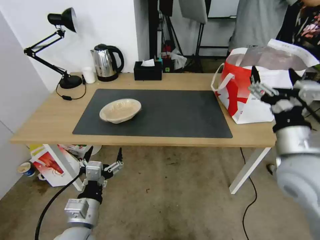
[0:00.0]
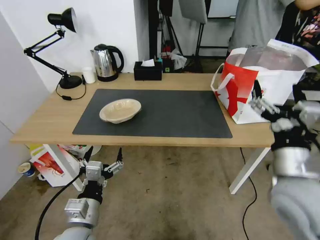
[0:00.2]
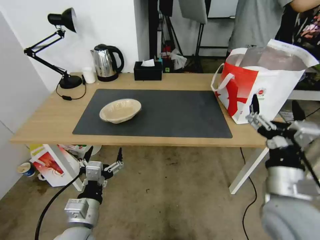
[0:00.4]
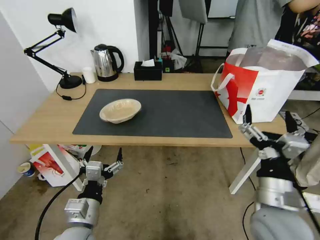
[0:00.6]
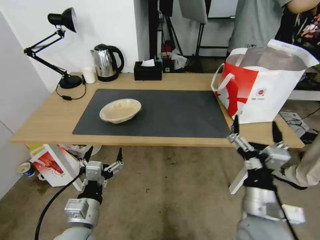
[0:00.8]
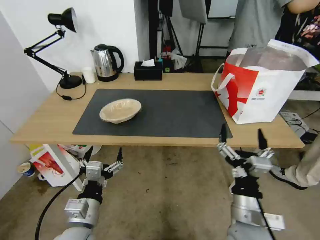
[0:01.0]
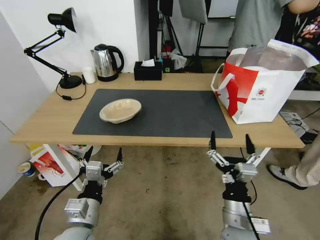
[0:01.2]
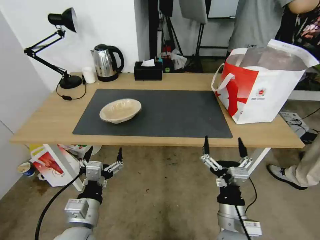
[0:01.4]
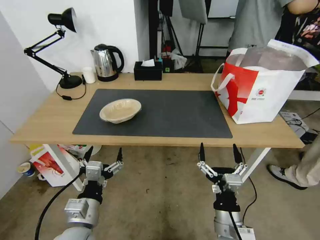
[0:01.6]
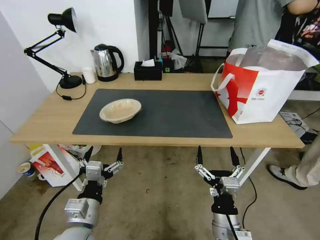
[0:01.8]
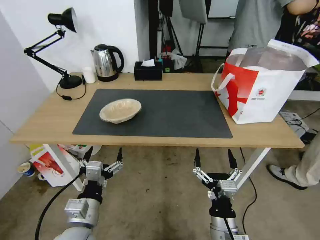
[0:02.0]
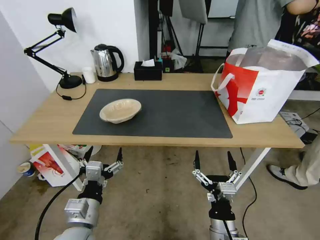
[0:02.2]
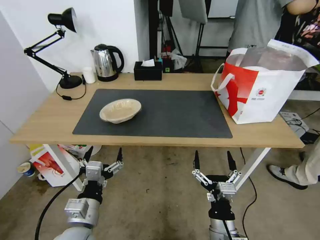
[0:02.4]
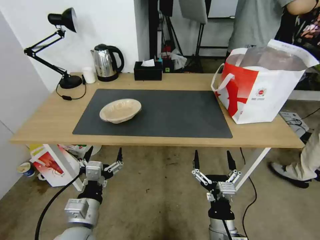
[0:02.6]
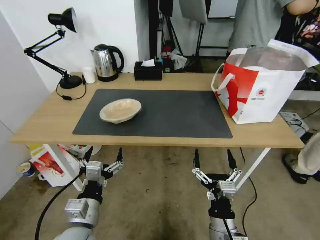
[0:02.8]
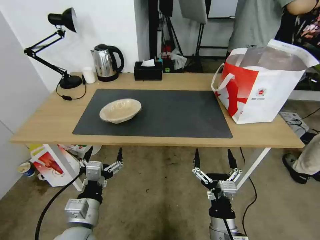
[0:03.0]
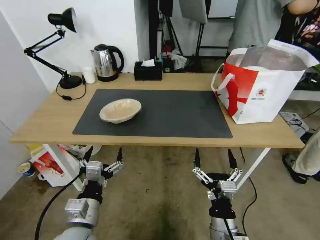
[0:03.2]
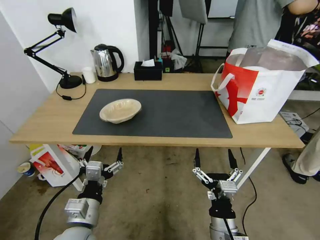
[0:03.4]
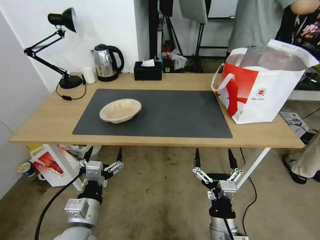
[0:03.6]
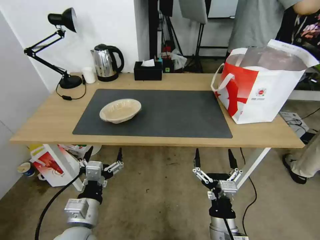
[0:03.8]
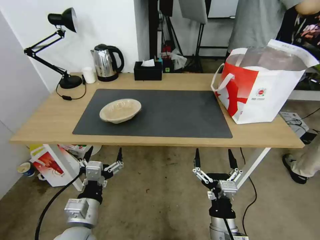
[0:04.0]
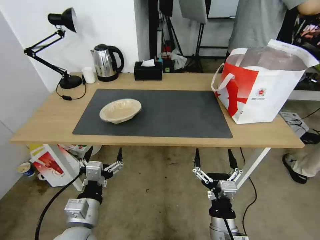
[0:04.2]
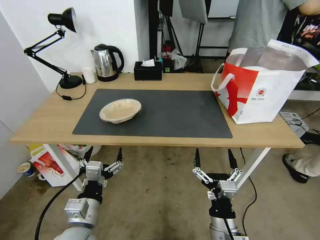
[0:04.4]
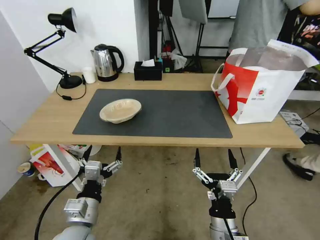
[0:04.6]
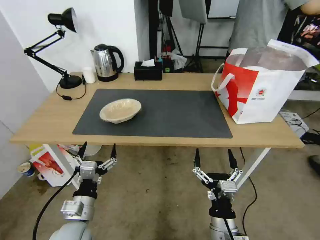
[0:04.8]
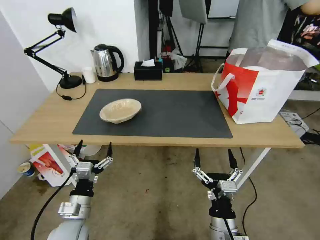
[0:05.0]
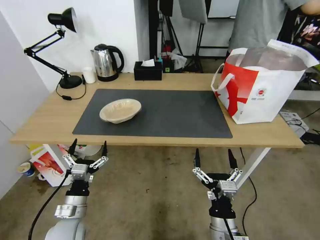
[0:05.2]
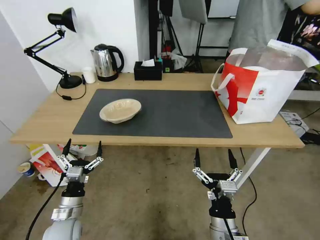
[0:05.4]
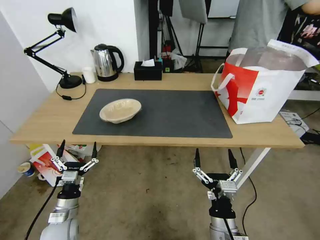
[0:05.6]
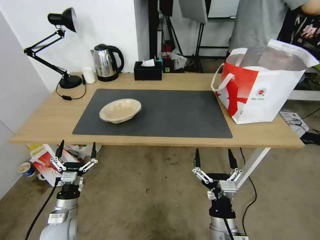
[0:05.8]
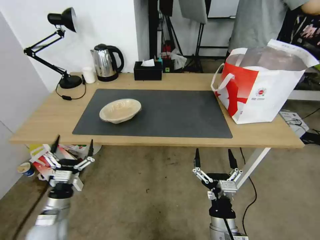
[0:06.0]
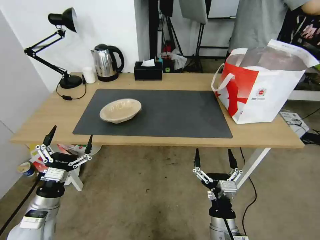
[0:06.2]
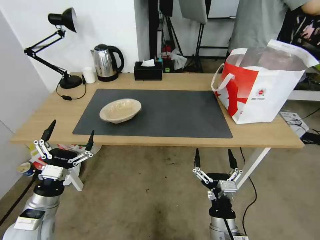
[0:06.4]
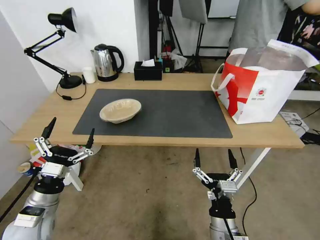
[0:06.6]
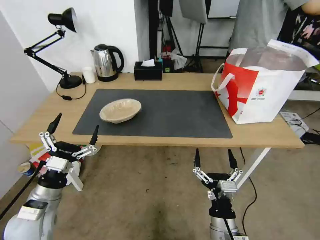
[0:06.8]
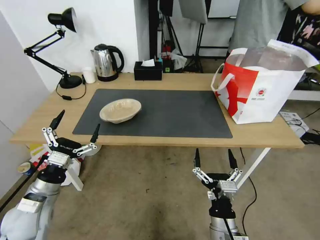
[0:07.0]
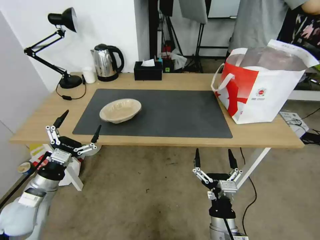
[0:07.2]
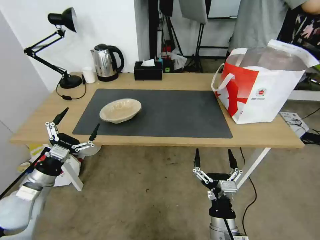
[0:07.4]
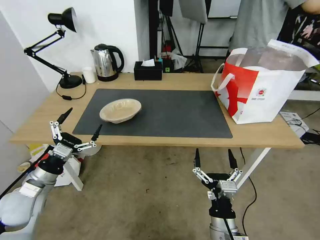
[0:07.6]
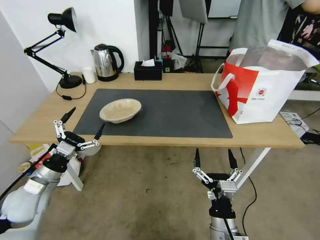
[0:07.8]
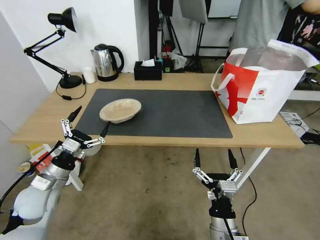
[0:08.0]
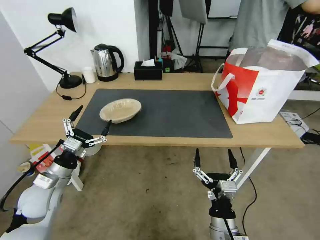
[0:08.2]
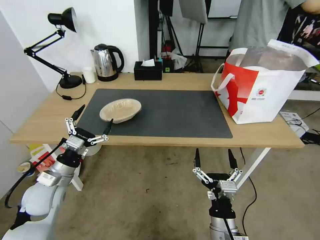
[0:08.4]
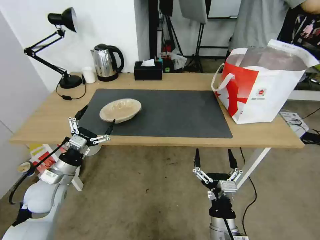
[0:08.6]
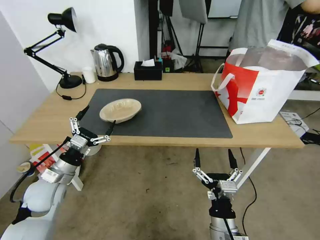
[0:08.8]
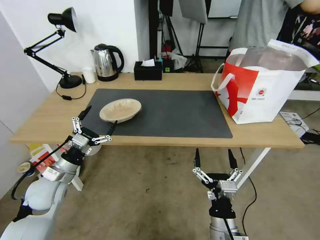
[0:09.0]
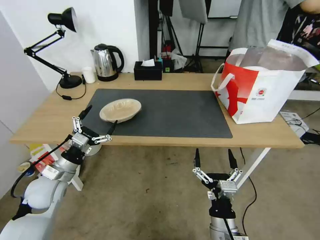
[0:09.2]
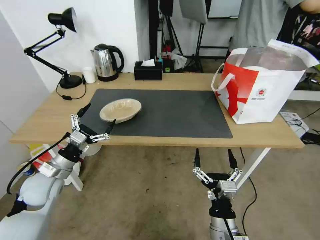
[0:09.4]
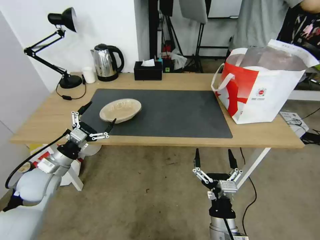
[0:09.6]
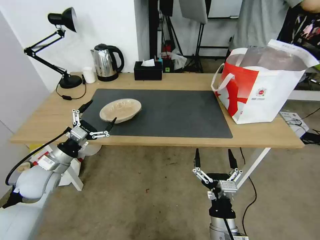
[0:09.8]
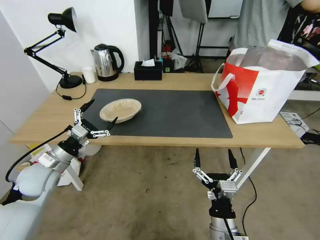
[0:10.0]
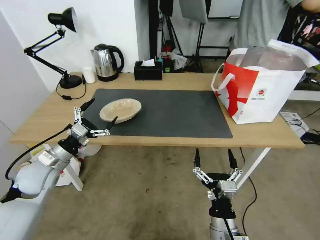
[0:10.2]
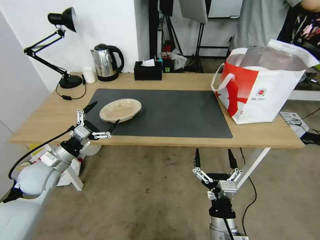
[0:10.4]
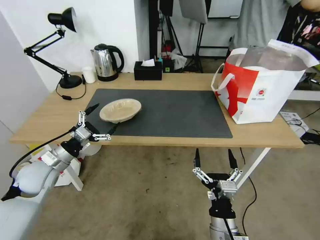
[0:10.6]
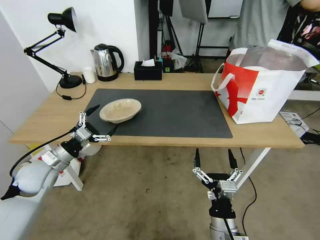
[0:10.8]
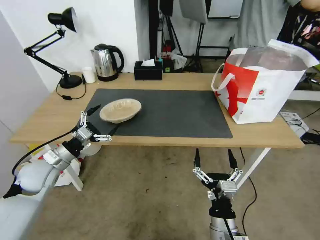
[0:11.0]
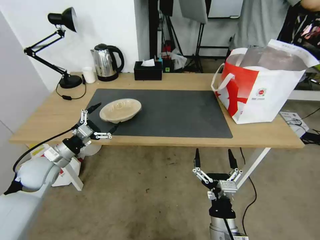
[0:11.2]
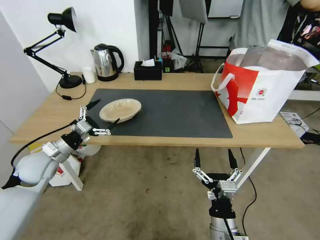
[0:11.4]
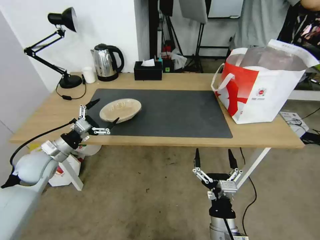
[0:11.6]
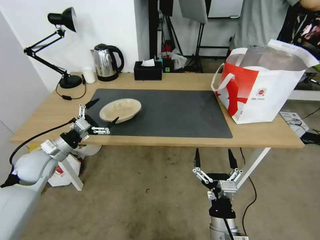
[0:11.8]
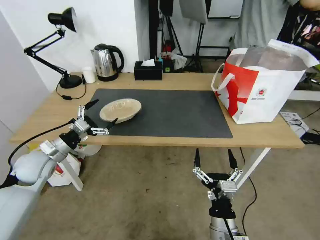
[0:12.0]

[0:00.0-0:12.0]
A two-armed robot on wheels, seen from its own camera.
Task of the whole recording: Pick up the trash from the table and place it into the takeout bag.
0:00.0 to 0:01.6: The right gripper is displaced downward, to the left and backward by some 25 cm.
0:01.6 to 0:03.0: The grippers move only a little.
0:03.0 to 0:04.4: The two grippers keep their place.
0:04.4 to 0:06.0: The left gripper travels to the left and downward by approximately 15 cm.
0:06.0 to 0:07.6: The left gripper heads upward and forward, covering some 10 cm.
0:07.6 to 0:09.0: The left gripper shifts by approximately 5 cm.
0:09.0 to 0:10.4: The left gripper ends up about 5 cm from where it was.
0:10.4 to 0:12.0: The grippers make only small movements.

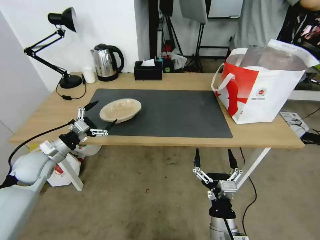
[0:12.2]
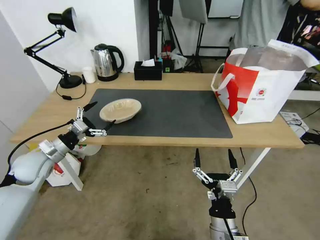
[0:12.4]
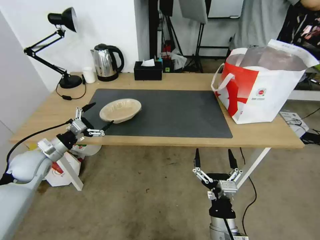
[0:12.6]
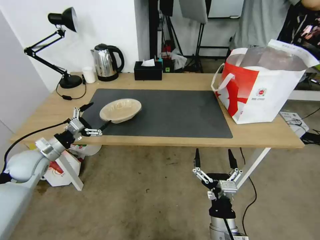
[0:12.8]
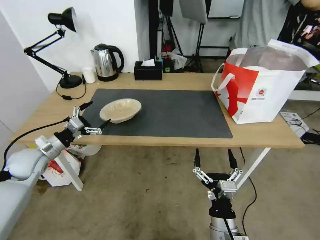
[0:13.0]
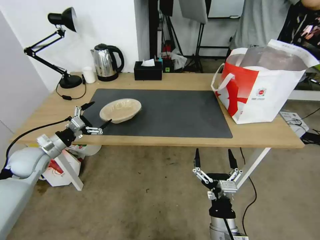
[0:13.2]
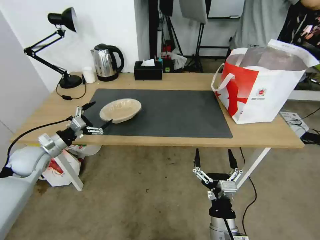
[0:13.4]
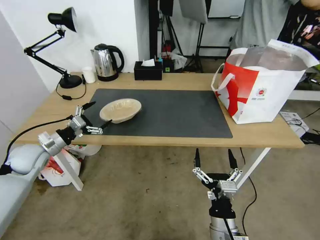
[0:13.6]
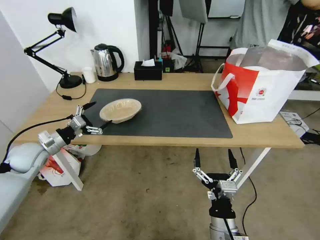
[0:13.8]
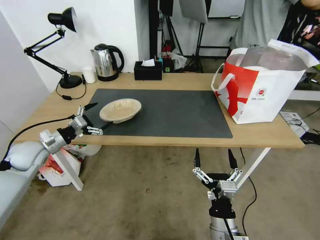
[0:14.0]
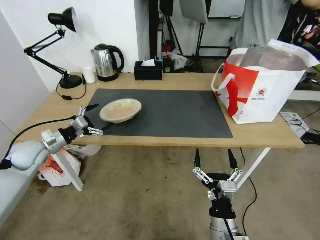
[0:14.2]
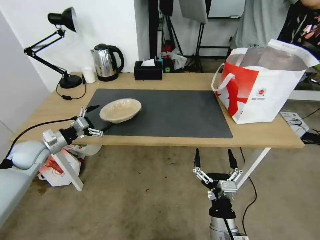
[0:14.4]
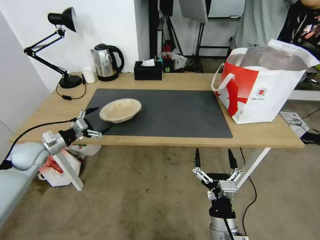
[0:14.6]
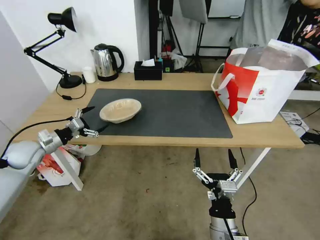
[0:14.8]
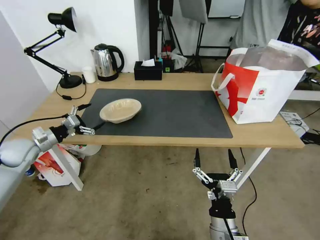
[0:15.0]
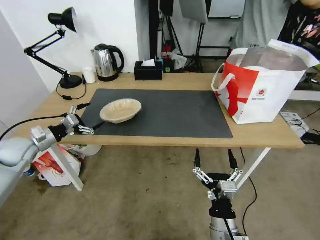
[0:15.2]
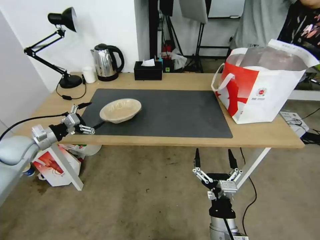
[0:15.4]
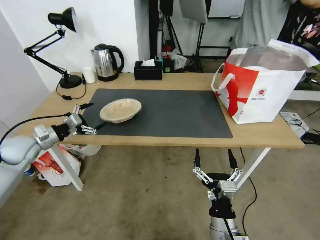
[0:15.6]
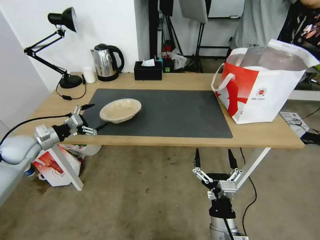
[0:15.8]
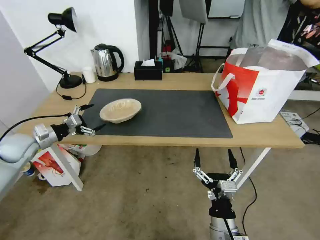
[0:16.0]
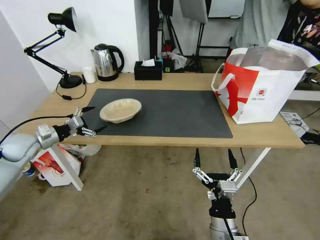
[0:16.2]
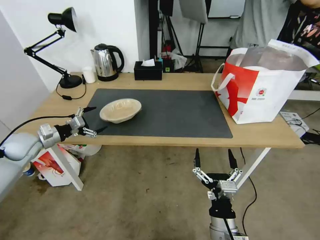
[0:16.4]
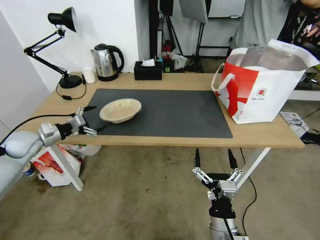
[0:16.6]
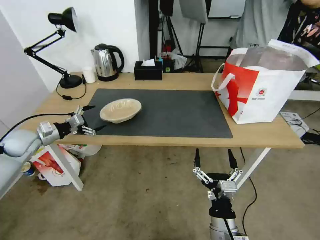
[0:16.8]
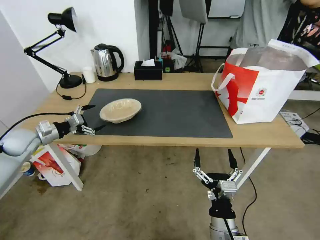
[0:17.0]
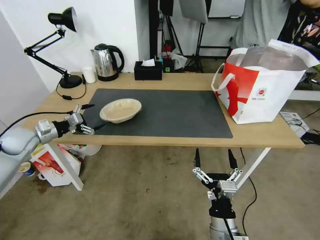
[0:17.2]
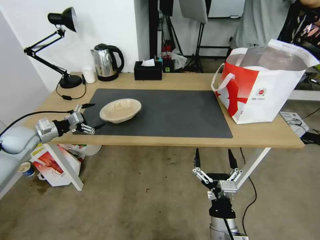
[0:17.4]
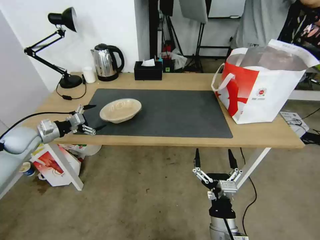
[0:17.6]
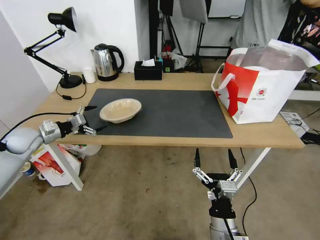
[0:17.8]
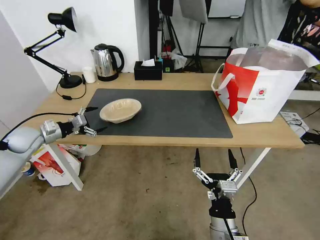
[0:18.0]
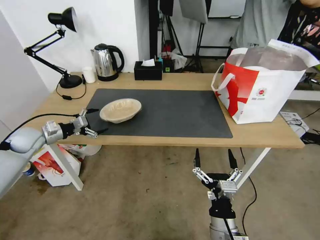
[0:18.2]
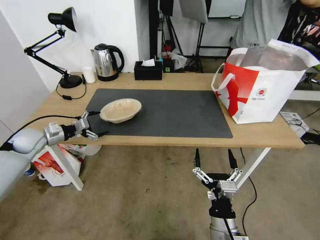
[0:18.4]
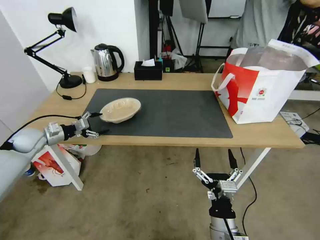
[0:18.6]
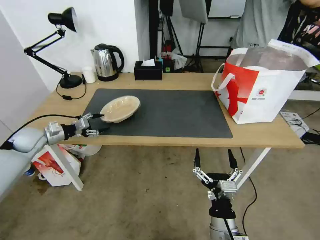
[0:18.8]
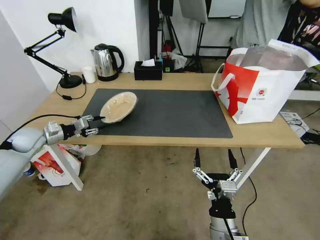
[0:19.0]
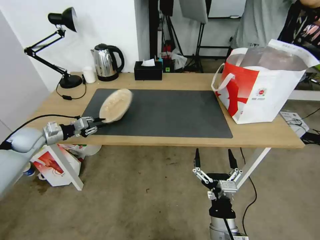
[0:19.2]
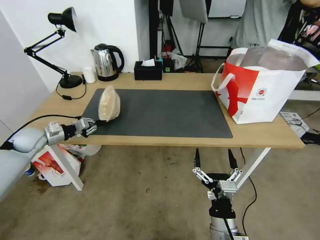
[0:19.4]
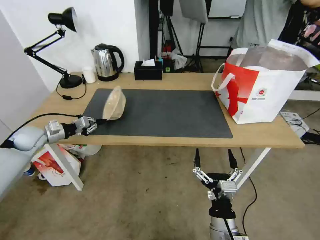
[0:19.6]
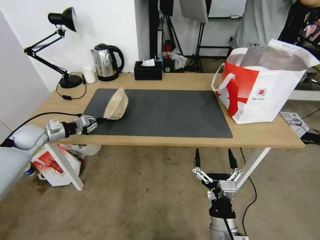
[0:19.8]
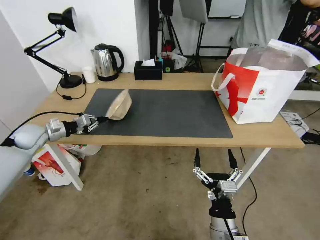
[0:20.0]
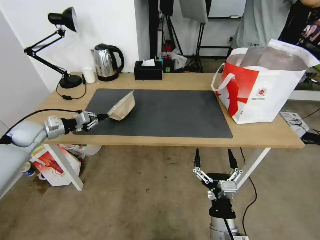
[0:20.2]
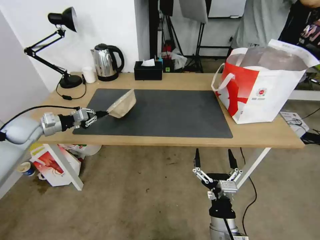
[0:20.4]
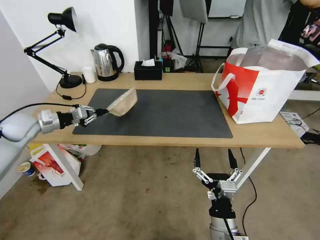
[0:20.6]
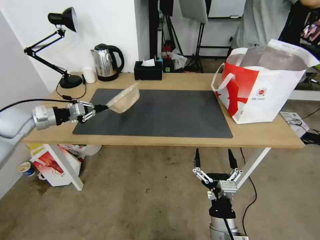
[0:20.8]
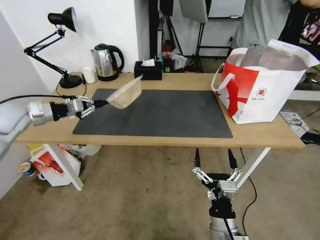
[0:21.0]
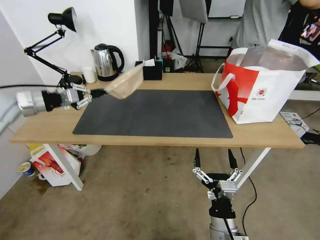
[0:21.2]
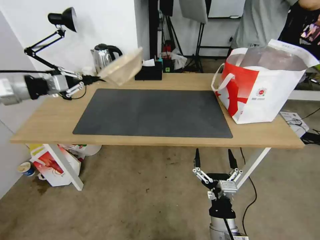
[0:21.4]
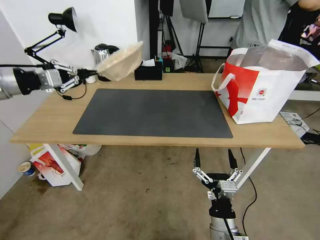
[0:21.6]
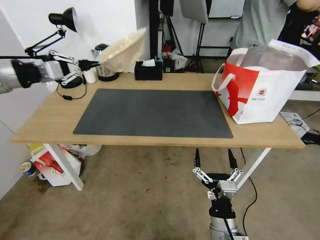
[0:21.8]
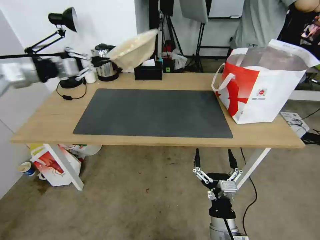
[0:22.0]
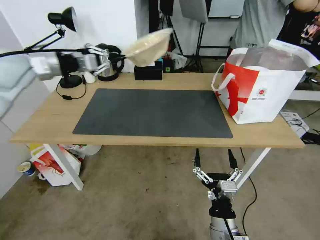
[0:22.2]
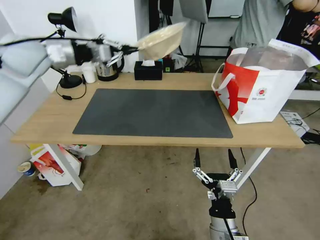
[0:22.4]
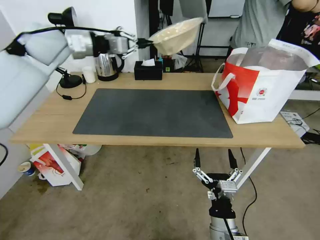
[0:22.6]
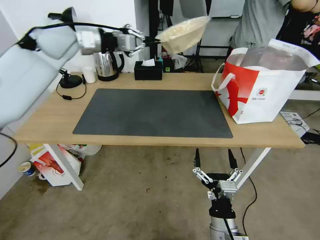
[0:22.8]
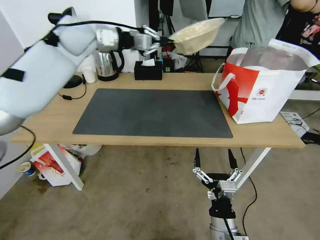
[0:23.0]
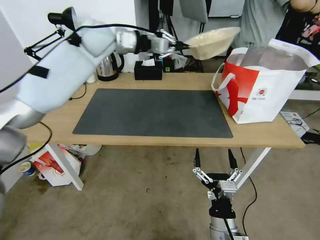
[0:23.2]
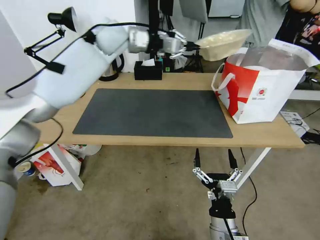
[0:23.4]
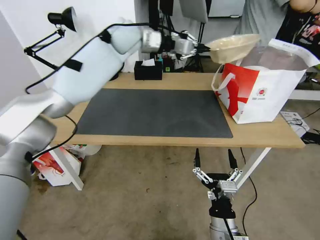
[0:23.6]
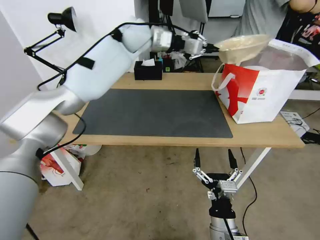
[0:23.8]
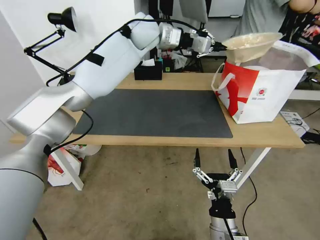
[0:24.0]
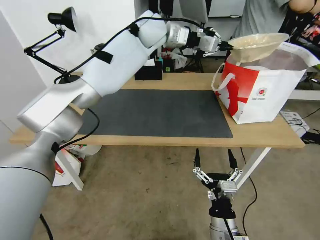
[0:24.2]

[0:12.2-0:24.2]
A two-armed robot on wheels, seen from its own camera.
Task of the whole recording: Pick up the trash from the table and place it into the takeout bag.
0:12.2 to 0:13.8: The left gripper shifts by roughly 5 cm.
0:13.8 to 0:16.6: The grippers make only small movements.
0:16.6 to 0:18.2: There are only small adjustments of the grippers.
0:18.2 to 0:19.8: The left gripper closes.
0:19.8 to 0:21.2: The left gripper shifts about 20 cm upward.
0:21.2 to 0:22.6: The left gripper shifts roughly 20 cm to the right, upward and forward.
0:22.6 to 0:24.2: The left gripper moves to the right, roughly 25 cm.
